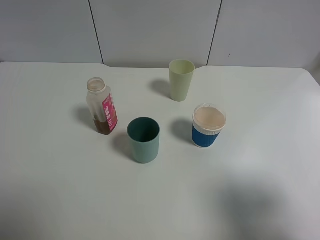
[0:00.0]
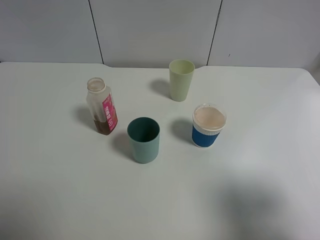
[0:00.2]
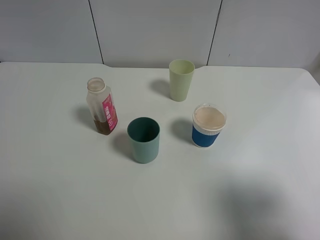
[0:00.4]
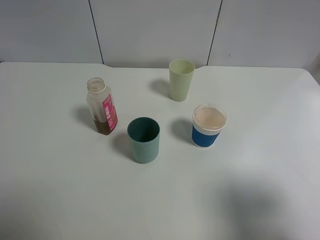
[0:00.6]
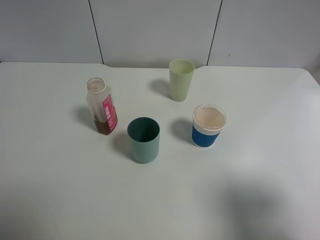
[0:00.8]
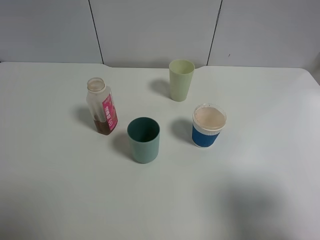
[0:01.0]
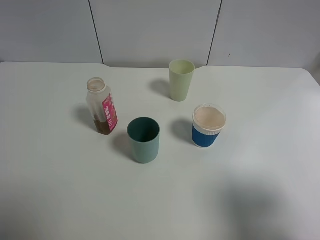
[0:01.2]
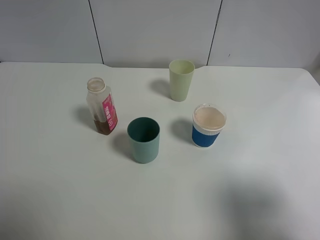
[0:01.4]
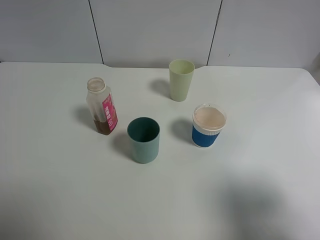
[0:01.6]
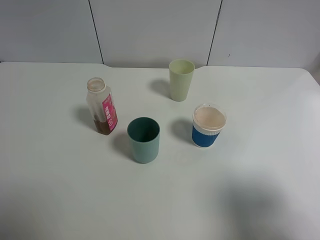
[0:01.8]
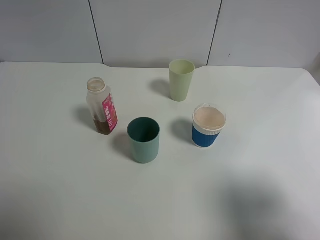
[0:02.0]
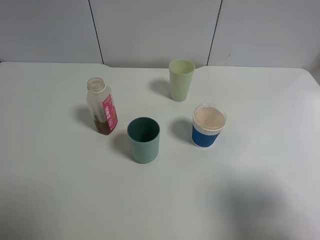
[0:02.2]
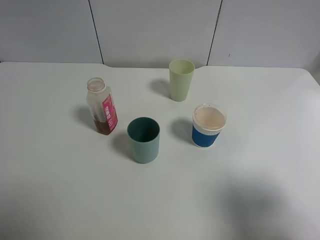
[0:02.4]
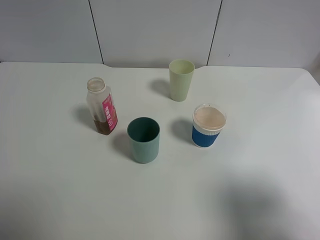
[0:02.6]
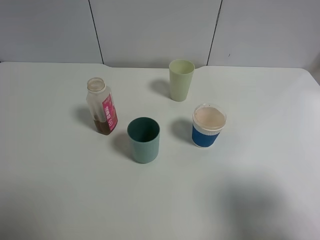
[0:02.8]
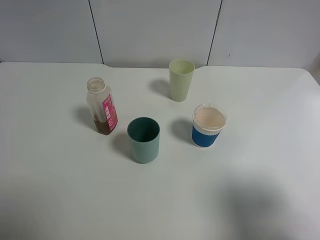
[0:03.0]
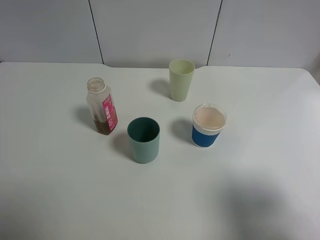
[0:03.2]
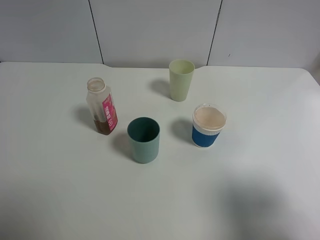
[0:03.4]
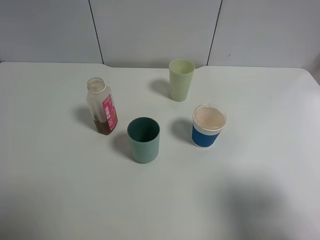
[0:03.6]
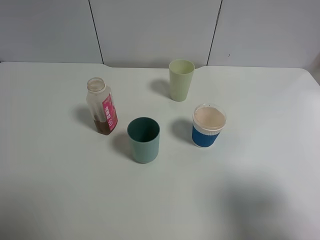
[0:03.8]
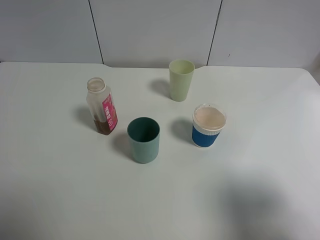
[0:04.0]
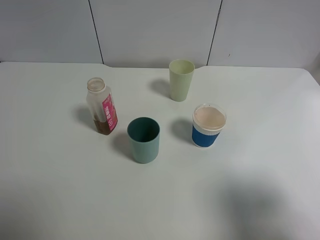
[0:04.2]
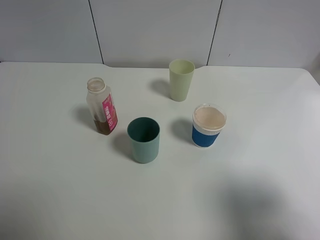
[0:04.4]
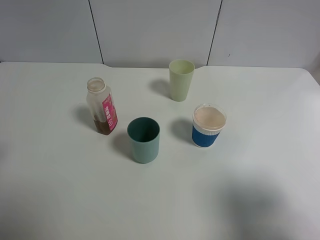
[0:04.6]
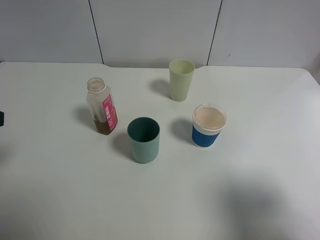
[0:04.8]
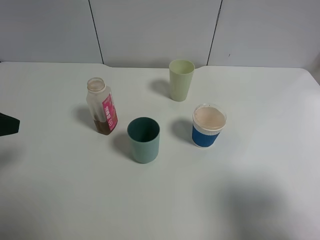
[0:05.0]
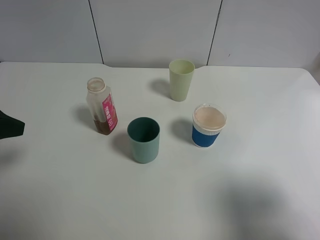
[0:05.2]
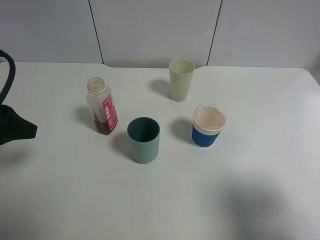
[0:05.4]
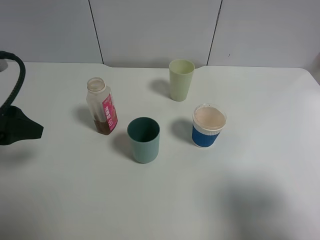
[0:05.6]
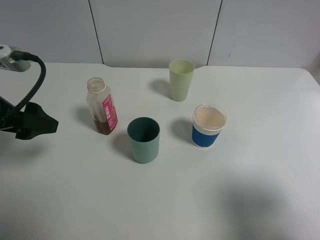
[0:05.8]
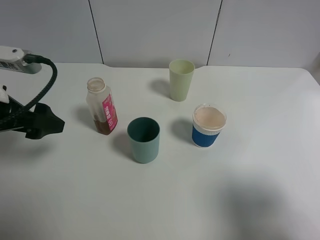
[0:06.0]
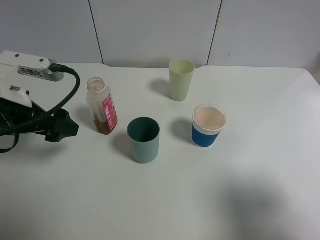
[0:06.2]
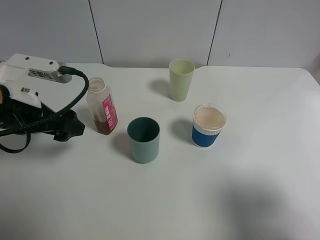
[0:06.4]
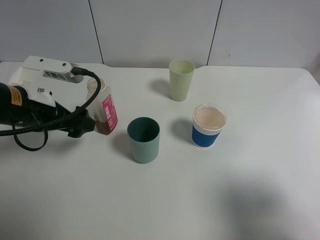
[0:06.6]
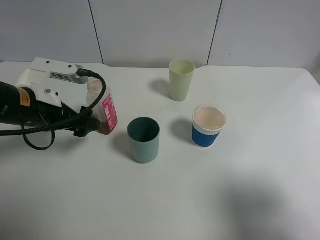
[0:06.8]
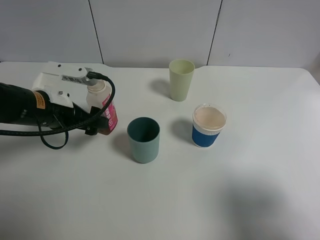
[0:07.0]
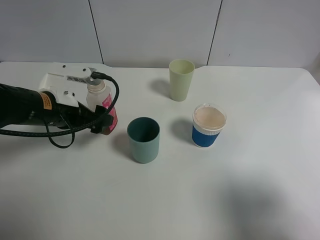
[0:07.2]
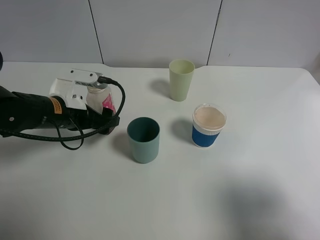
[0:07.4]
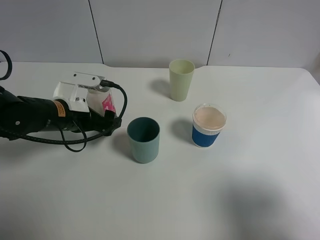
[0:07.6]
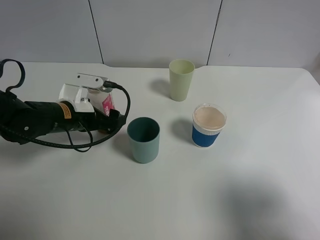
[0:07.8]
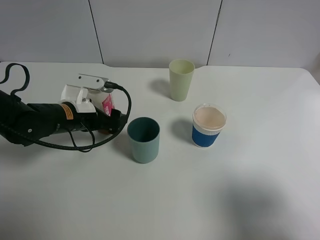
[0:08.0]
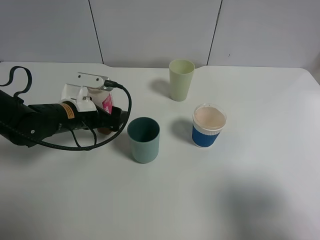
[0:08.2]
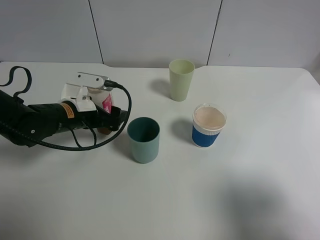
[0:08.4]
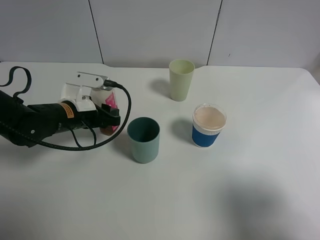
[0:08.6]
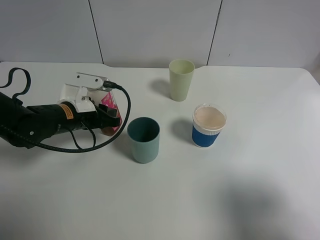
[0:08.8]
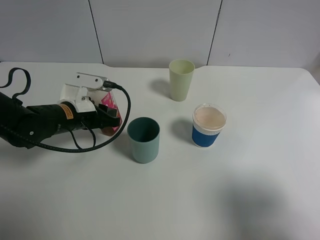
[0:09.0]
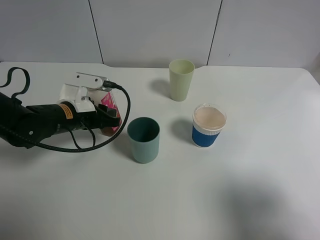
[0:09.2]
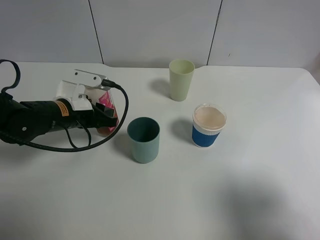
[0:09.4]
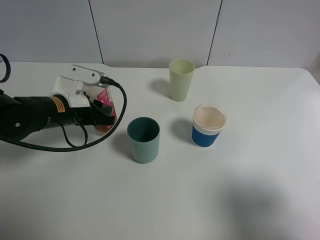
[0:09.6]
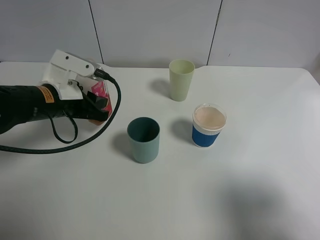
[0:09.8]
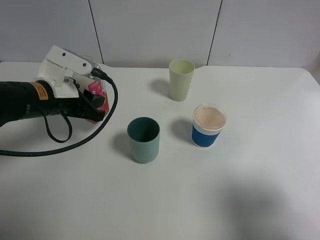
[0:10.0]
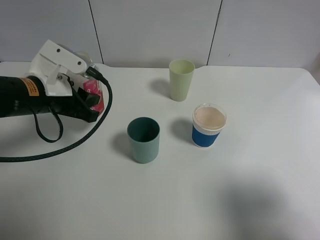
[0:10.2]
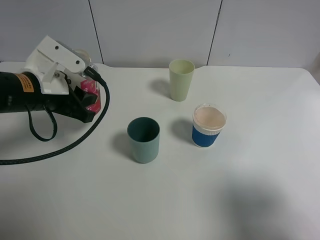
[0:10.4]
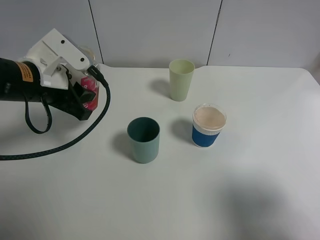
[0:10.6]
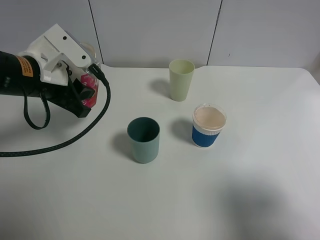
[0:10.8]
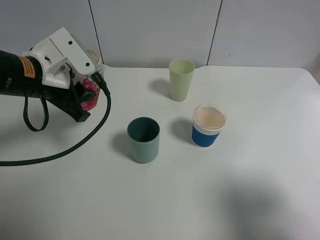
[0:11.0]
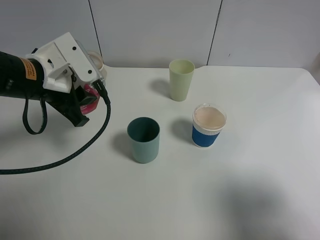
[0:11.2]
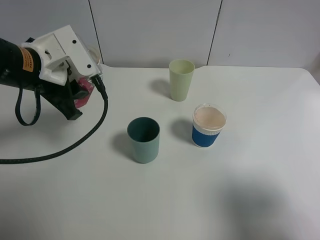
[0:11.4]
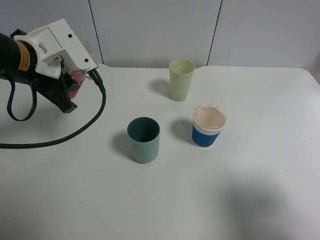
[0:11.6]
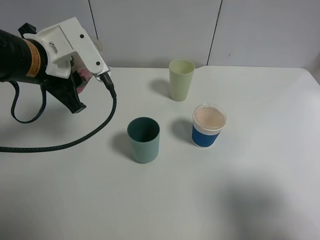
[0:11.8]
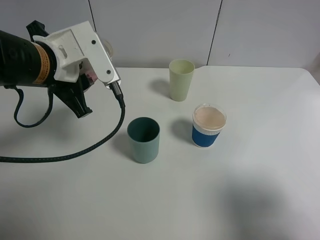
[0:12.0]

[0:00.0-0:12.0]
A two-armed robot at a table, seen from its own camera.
Task of the whole recording: use a gripper to hold the bottle of the drink and pour it into a random cup.
Step, 0:00.0 to 0:08.6: Grasp the cranberry juice bottle with the left gripper.
0:00.0 to 0:03.0: The two grippers keep their place.
0:04.4 to 0:06.0: The left gripper moves forward, downward and to the right, about 15 cm.
0:06.0 to 0:07.6: The left gripper is displaced downward, forward and to the right by roughly 15 cm.
0:07.6 to 0:09.0: The left gripper closes up.
0:09.0 to 0:10.4: The left gripper is displaced upward by approximately 10 cm.
0:10.4 to 0:12.0: The left gripper ends up about 5 cm from where it was.

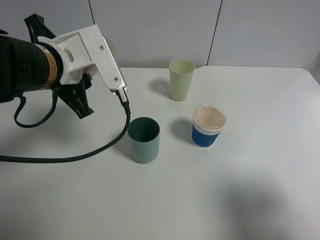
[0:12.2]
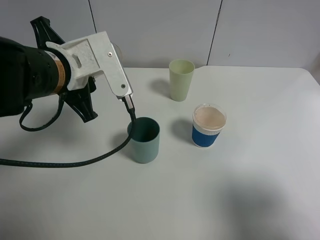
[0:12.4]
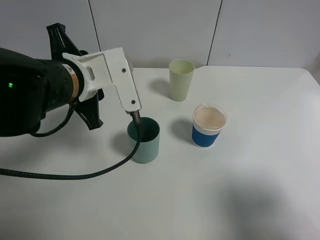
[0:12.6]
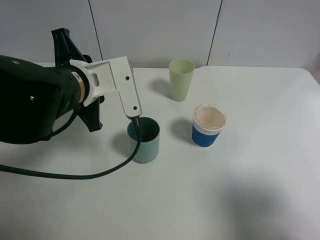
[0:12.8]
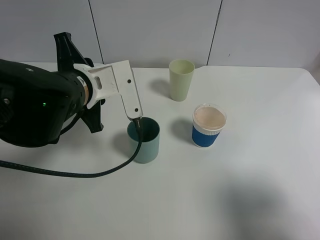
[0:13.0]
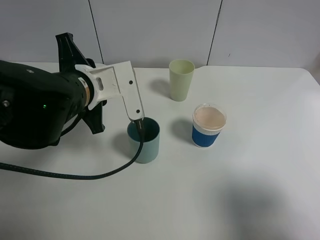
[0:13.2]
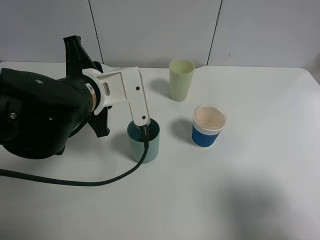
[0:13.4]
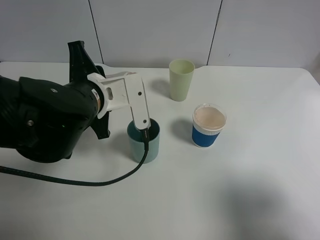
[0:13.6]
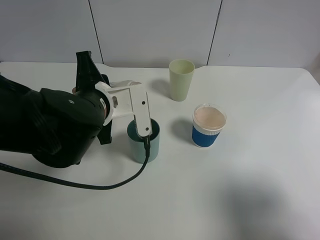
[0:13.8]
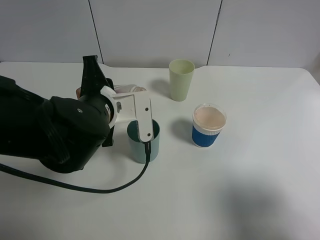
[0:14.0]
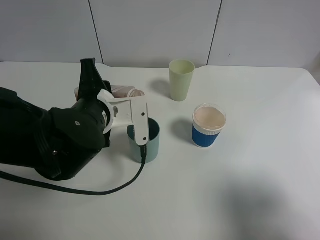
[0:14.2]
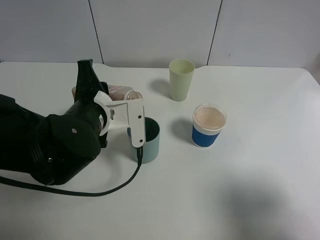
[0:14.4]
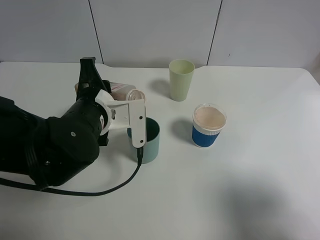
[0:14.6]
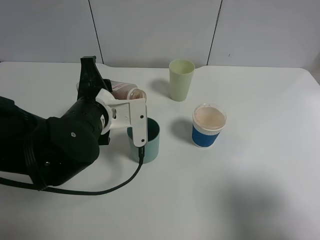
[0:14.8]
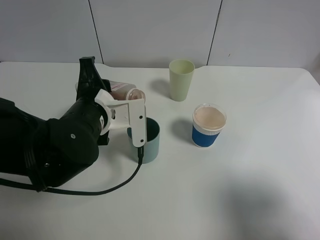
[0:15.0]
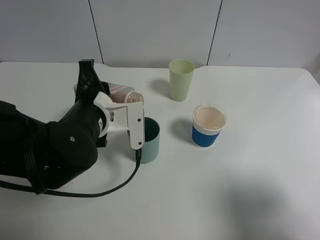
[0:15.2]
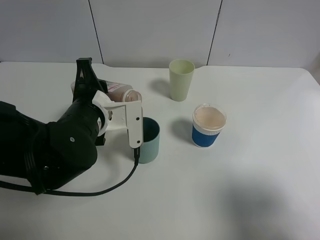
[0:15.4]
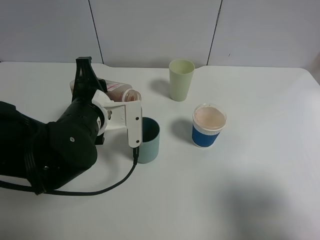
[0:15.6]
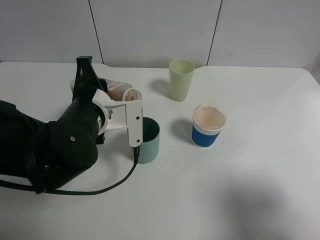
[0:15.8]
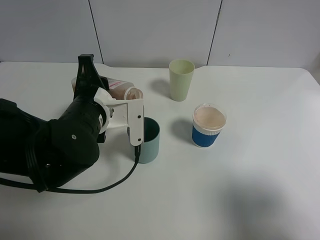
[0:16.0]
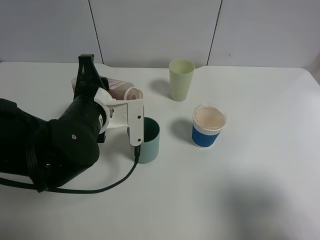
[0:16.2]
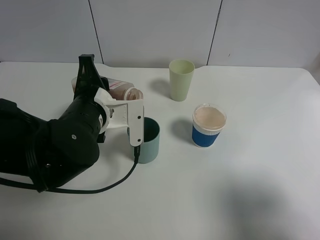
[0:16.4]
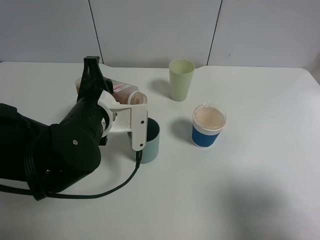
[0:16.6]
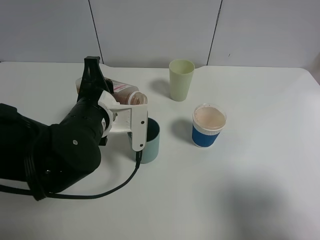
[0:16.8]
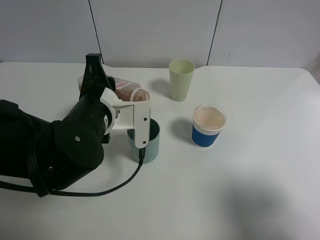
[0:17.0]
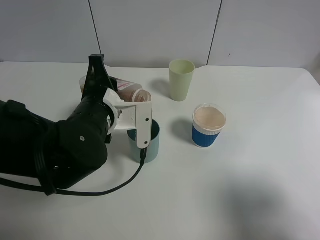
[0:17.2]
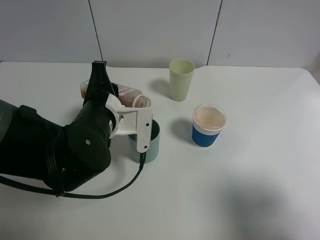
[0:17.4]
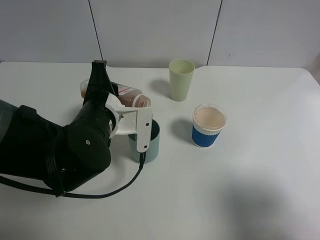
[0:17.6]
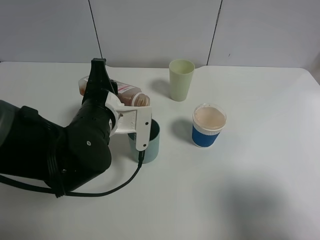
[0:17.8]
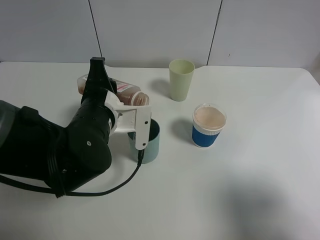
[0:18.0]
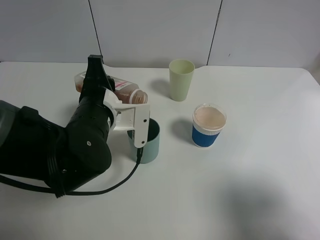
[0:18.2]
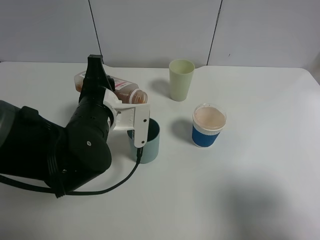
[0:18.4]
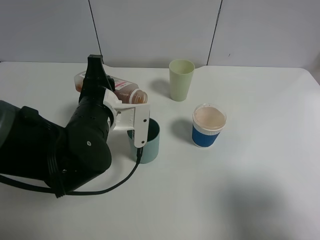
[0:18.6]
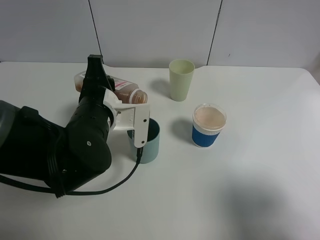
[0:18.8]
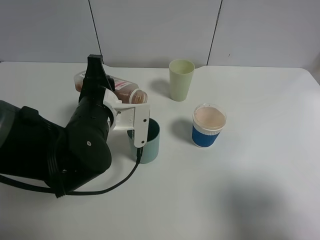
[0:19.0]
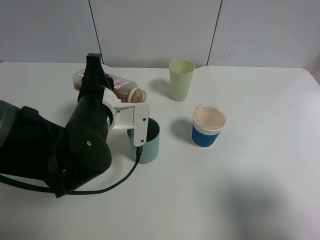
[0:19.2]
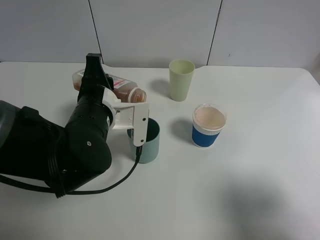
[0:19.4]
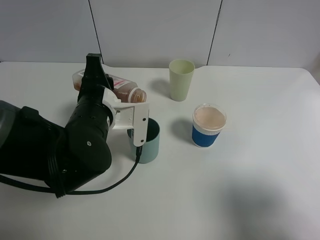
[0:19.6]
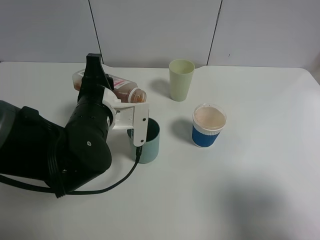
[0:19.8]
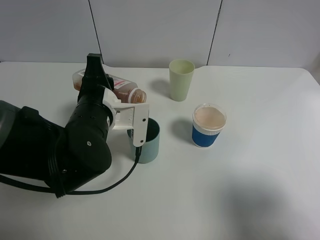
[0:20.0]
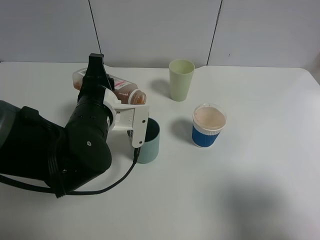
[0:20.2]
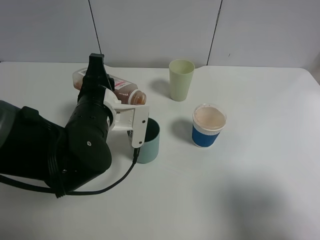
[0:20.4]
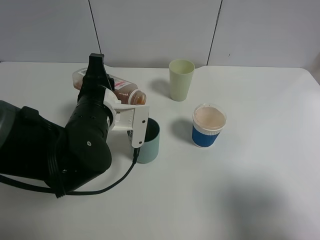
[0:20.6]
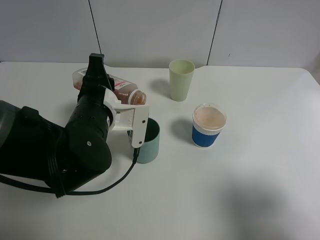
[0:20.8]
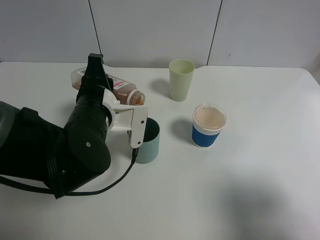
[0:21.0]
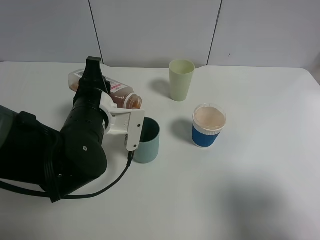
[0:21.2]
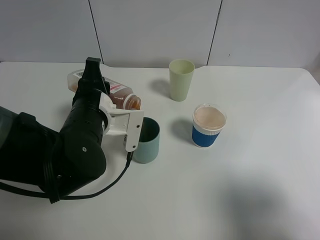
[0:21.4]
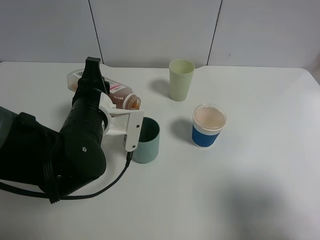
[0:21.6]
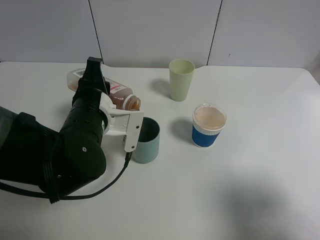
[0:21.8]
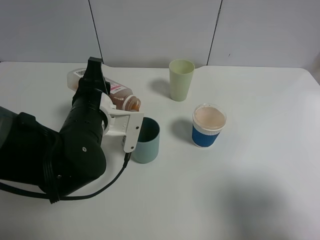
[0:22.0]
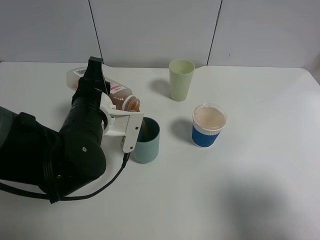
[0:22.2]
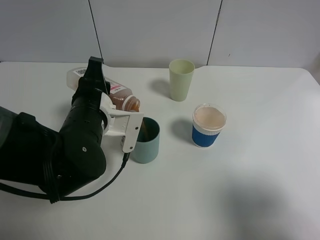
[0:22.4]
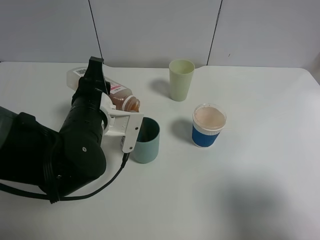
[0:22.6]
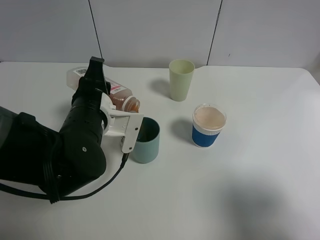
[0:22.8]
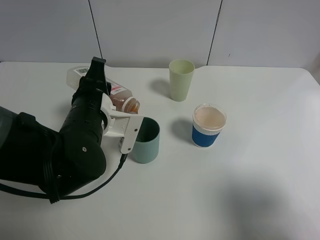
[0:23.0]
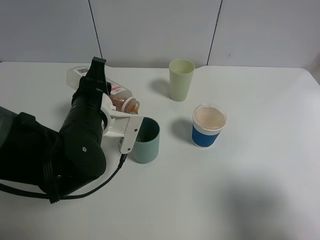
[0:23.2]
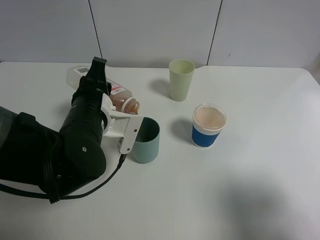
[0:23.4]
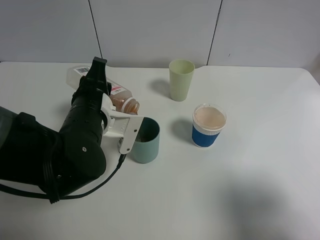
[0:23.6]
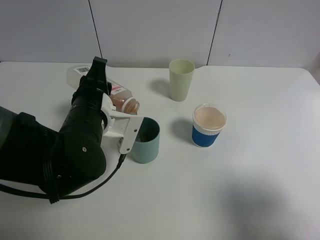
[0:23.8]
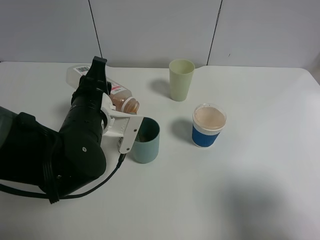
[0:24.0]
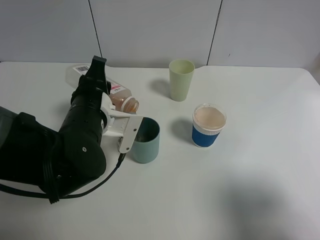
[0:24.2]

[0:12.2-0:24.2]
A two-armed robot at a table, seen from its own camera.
Task of the whole recording: use a gripper to hold the bottle of the drink and pour it into a random cup.
0:12.2 to 0:13.8: The left gripper moves downward, some 5 cm.
0:13.8 to 0:15.2: There are only small adjustments of the grippers.
0:15.2 to 0:16.6: Neither gripper changes place.
0:16.6 to 0:18.2: The two grippers keep their place.
0:18.2 to 0:19.8: The two grippers keep their place.
0:19.8 to 0:21.2: The grippers stay close to where they were, moving slightly.
0:21.2 to 0:22.6: Neither gripper changes place.
0:22.6 to 0:24.2: The two grippers keep their place.
